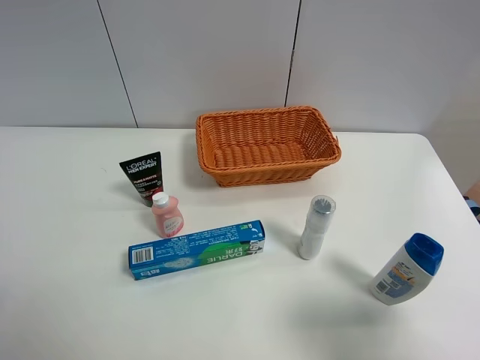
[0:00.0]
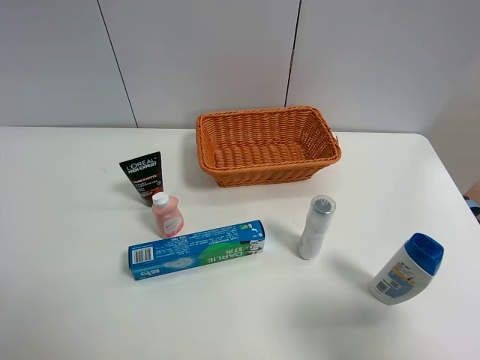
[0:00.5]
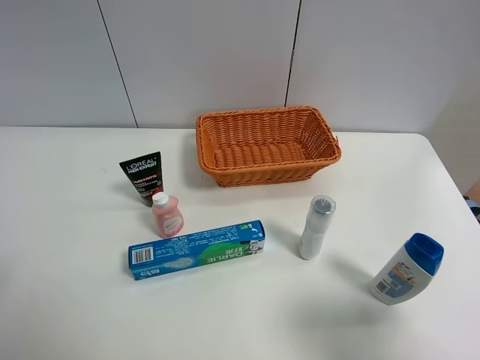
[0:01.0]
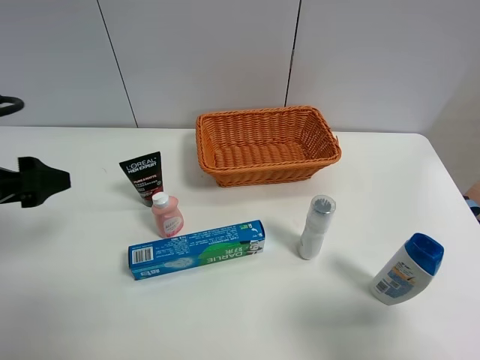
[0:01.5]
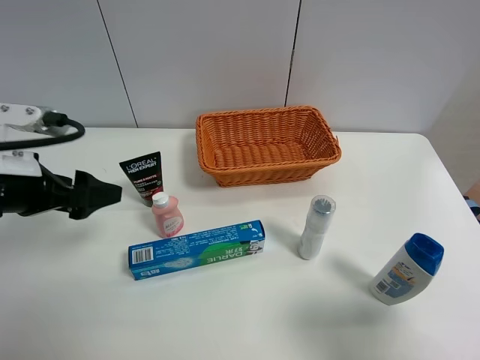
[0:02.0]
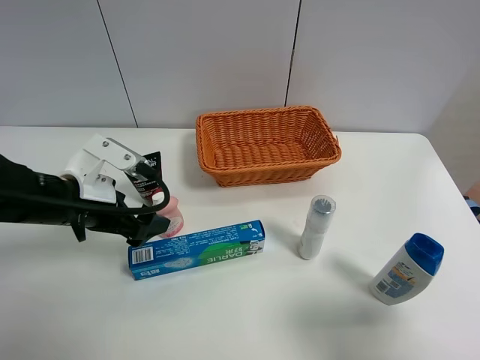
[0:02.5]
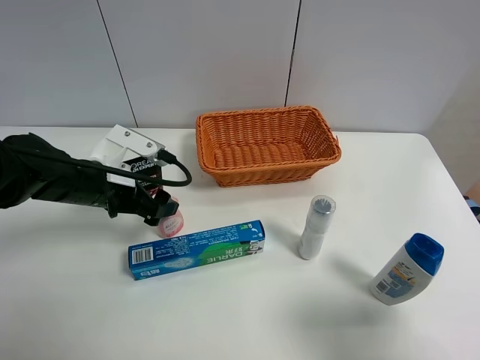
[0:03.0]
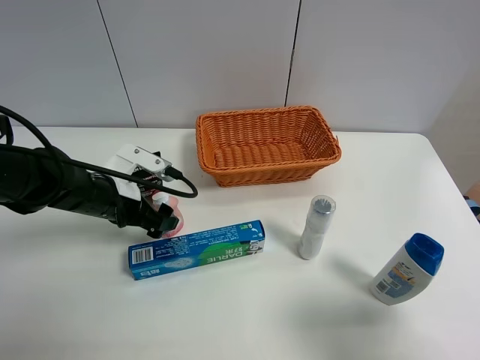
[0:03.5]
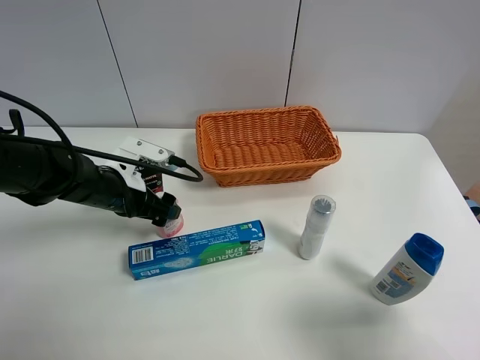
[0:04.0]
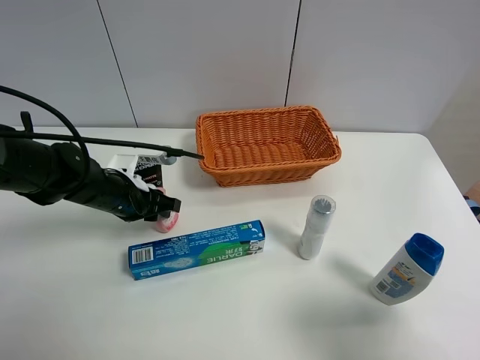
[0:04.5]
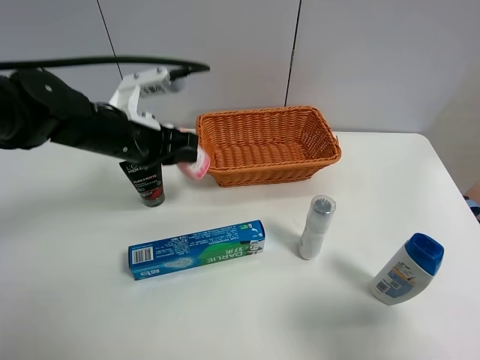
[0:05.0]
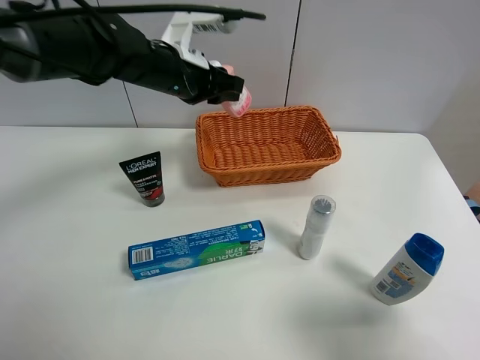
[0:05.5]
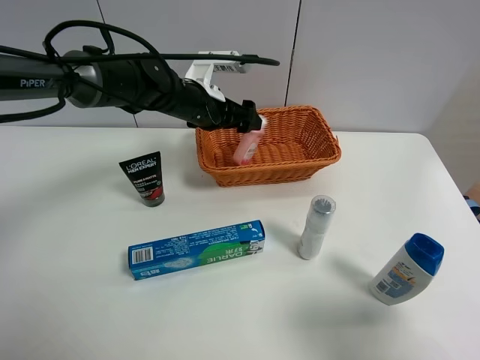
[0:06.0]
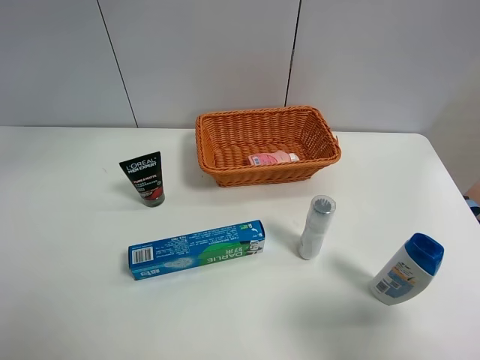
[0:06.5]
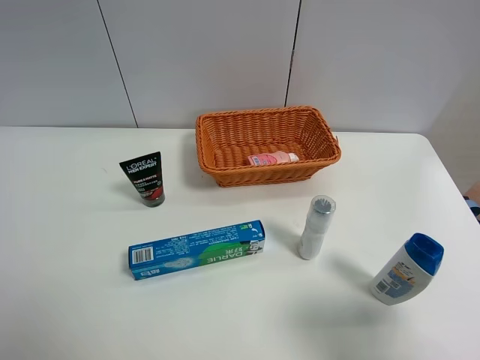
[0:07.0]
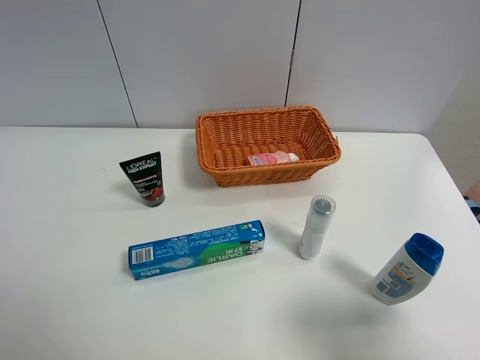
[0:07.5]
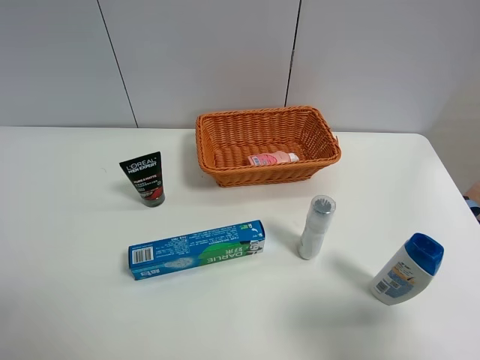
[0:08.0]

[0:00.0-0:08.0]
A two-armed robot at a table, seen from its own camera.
Task of the whole recording: Place the object closest to the toothpaste in the basket.
Step, 0:00.0 to 0:04.0: Grasp the pink laundry detergent with left gripper.
Step, 0:04.5 to 0:06.0: Place the pink laundry detergent in the basket with left gripper.
0:00.0 to 0:02.0: The left gripper moves forward, roughly 20 cm.
0:02.0 to 0:04.0: The left gripper goes roughly 15 cm downward, forward and to the right.
0:04.0 to 0:06.0: The left gripper travels forward, to the right and upward by approximately 20 cm, and closes, then opens again.
0:06.0 to 0:08.0: The left gripper shifts approximately 50 cm backward and to the left.
